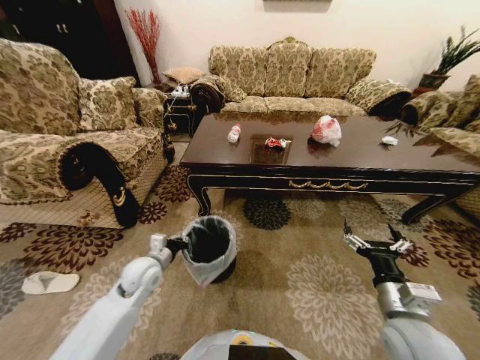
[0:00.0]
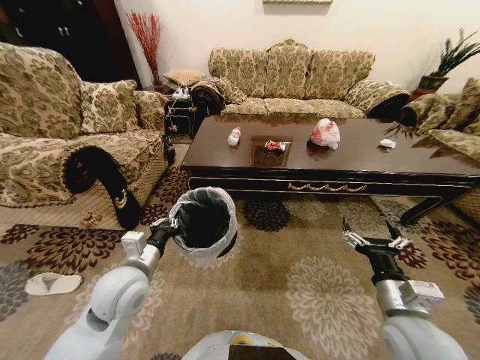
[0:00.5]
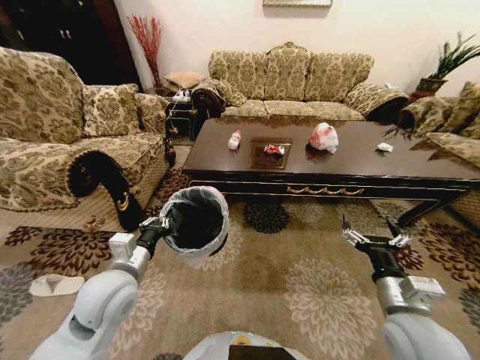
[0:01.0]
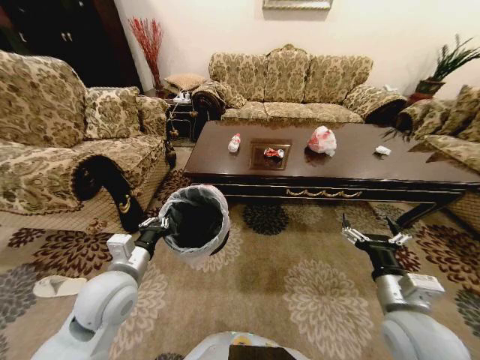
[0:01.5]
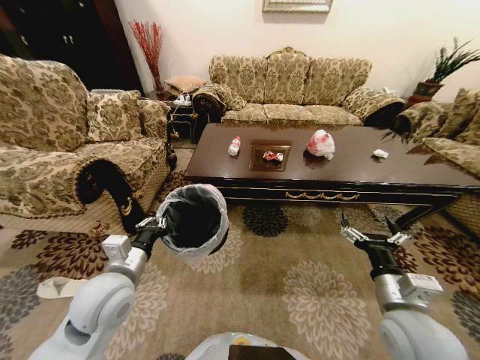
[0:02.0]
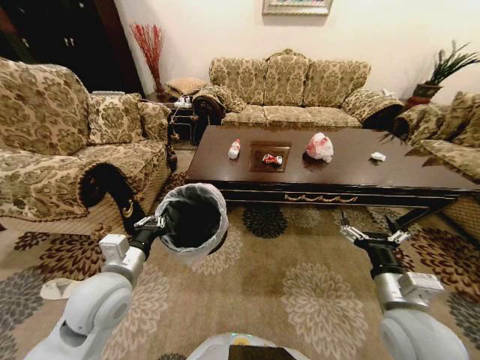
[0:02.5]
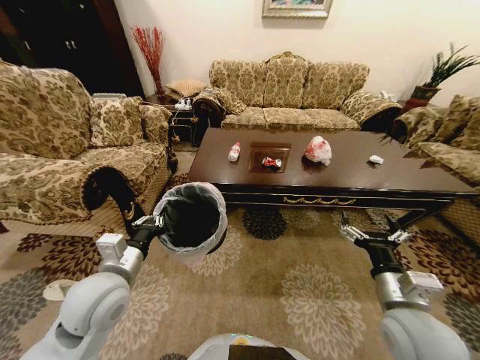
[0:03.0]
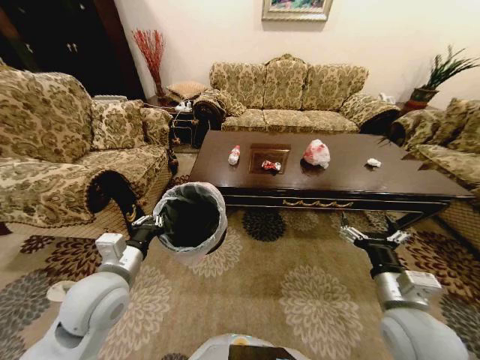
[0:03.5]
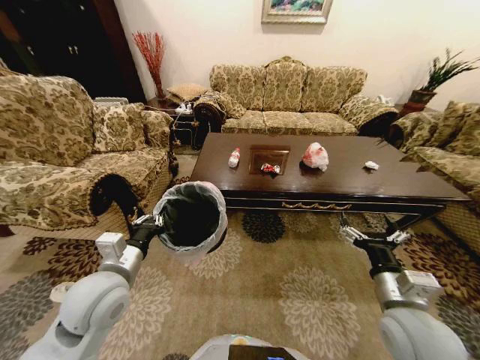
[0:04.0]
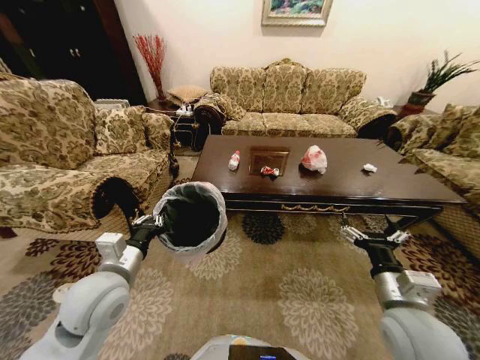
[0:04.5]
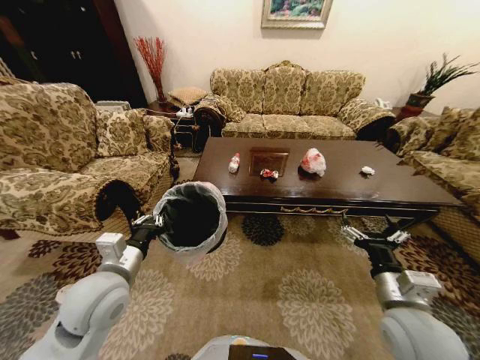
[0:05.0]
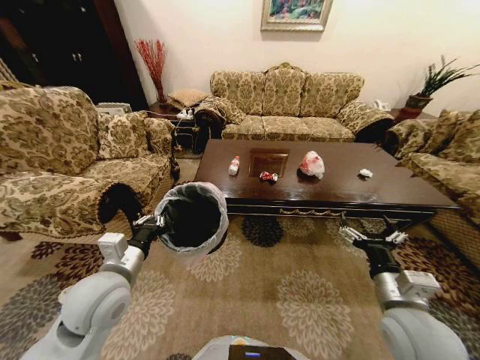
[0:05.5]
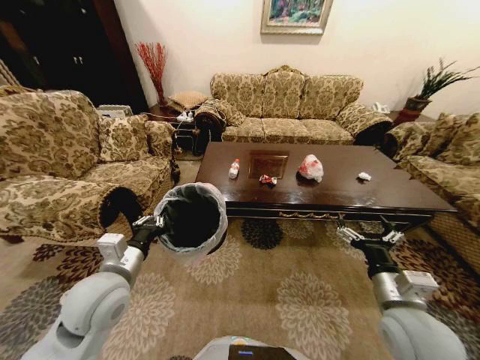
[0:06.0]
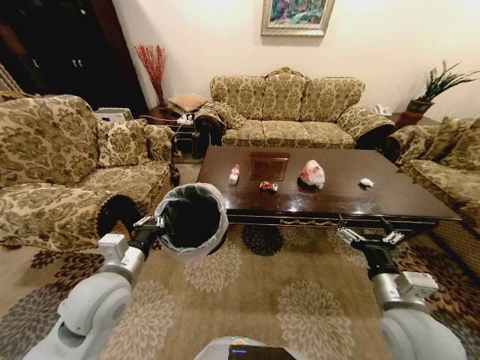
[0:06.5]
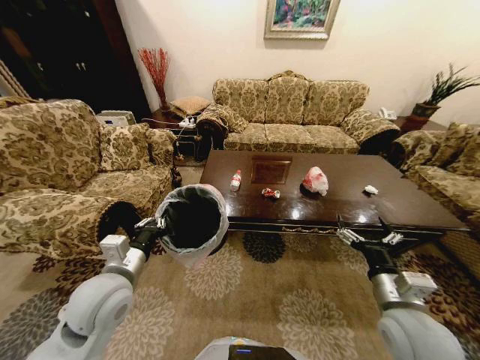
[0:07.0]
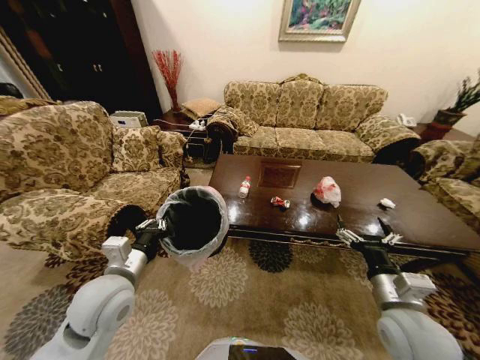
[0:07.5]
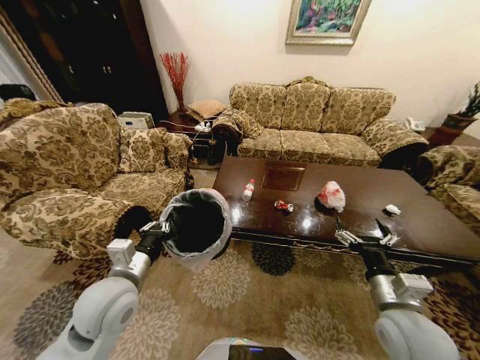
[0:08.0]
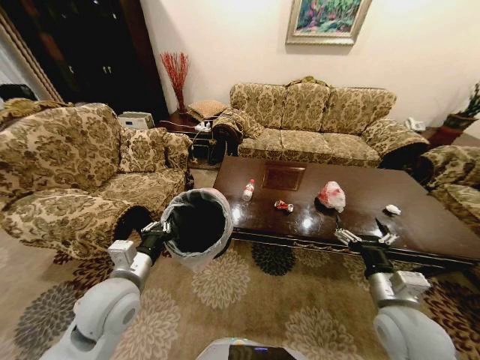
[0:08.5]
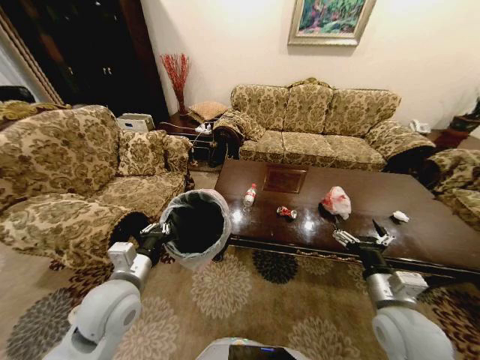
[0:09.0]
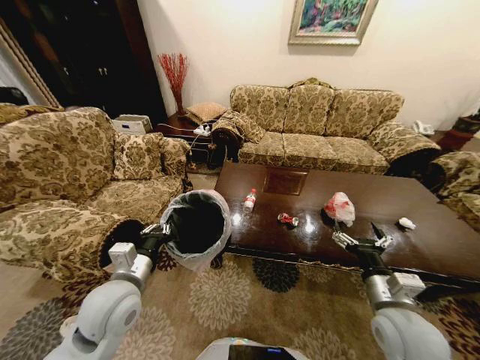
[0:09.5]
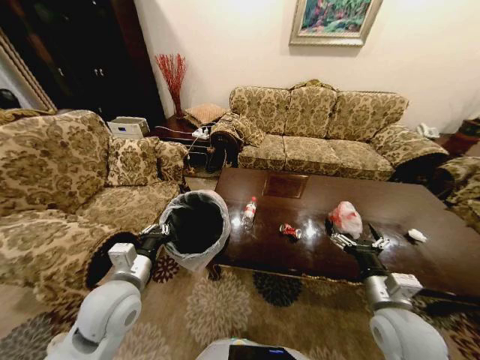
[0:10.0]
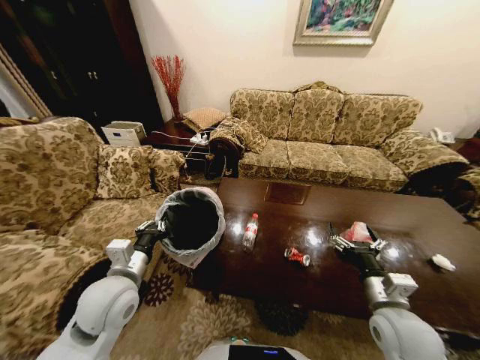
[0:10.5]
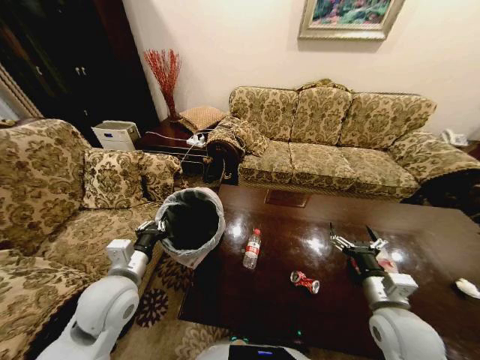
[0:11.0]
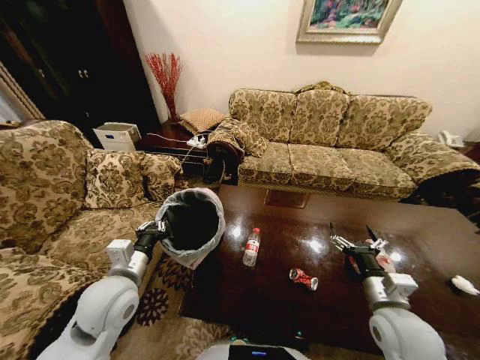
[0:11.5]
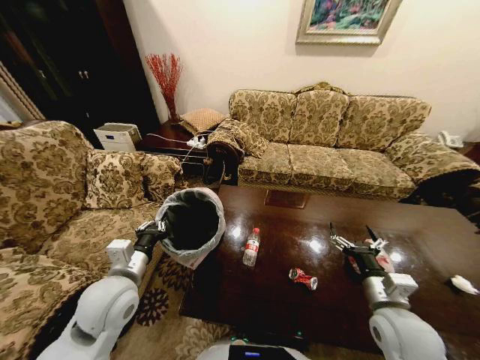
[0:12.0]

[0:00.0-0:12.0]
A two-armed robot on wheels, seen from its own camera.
Task of the whole recording: Move to the front of the table and place the trash on the table into the trash bin.
0:00.0 to 0:02.0: The left gripper shifts about 15 cm upward and backward.

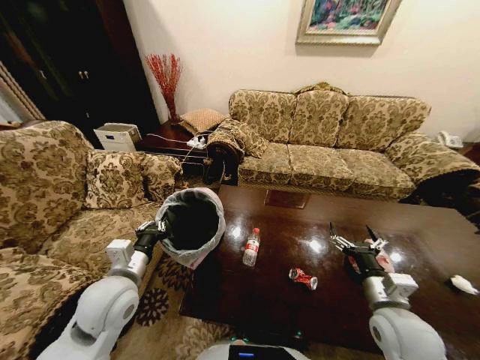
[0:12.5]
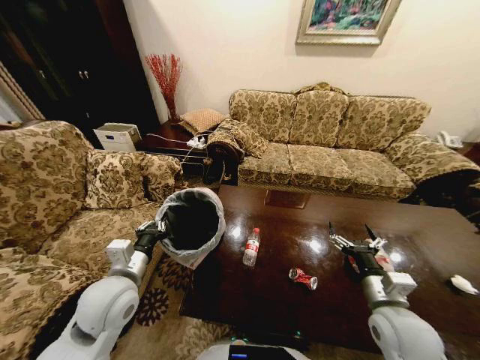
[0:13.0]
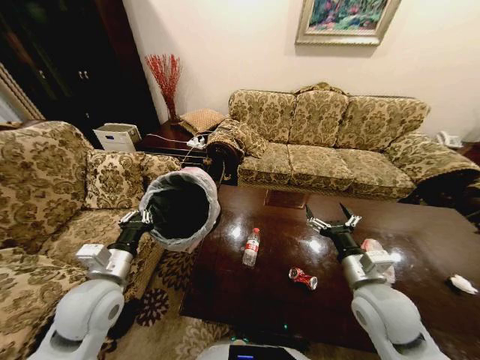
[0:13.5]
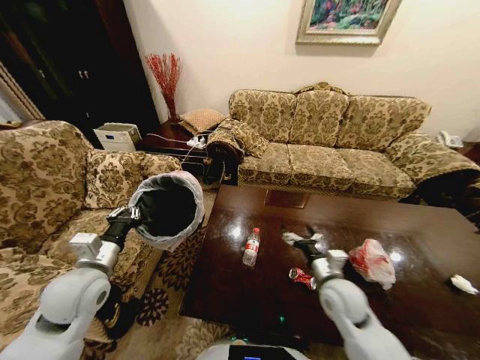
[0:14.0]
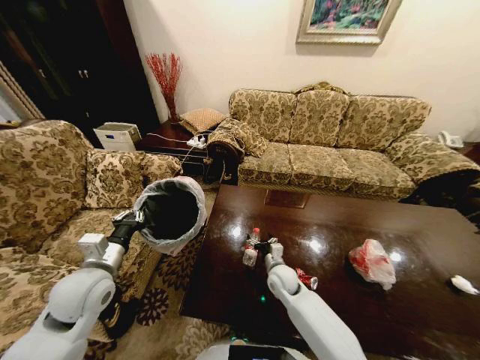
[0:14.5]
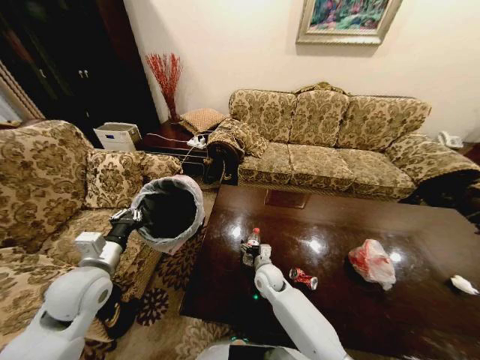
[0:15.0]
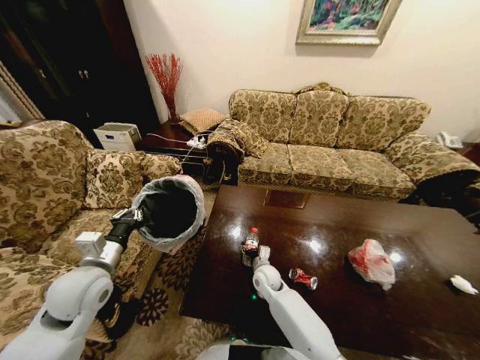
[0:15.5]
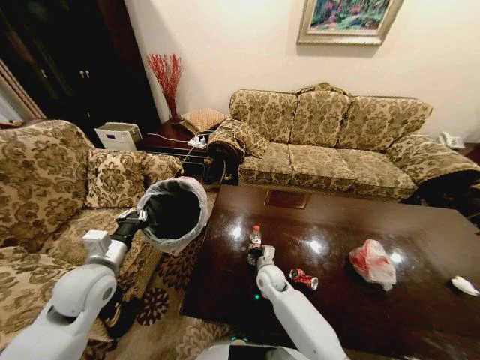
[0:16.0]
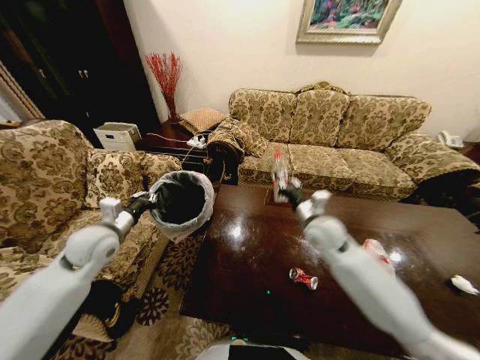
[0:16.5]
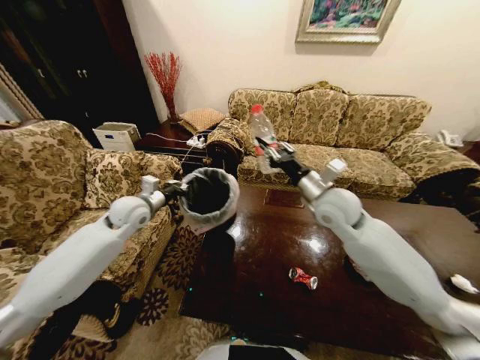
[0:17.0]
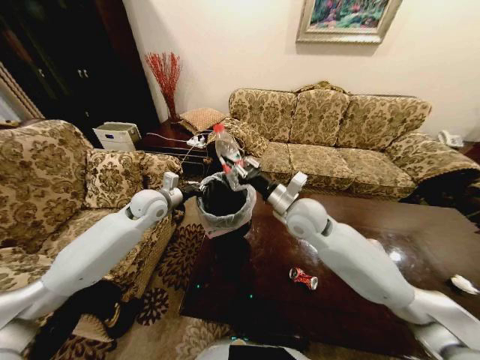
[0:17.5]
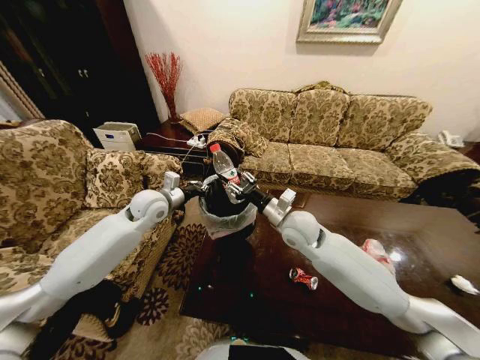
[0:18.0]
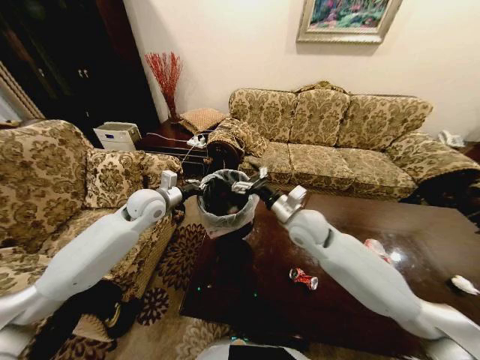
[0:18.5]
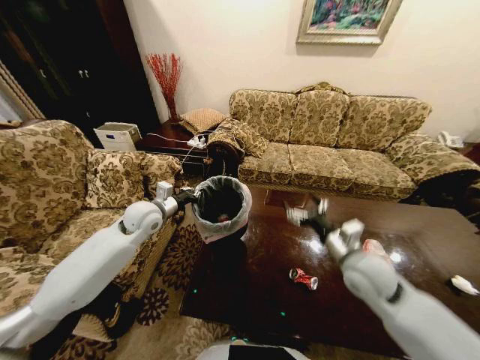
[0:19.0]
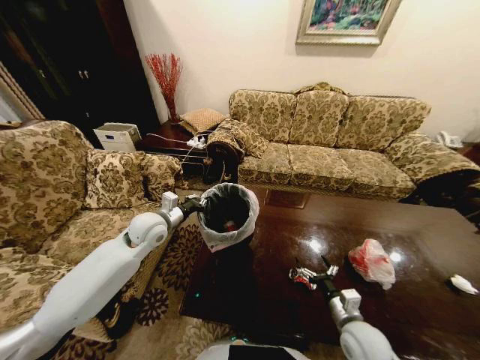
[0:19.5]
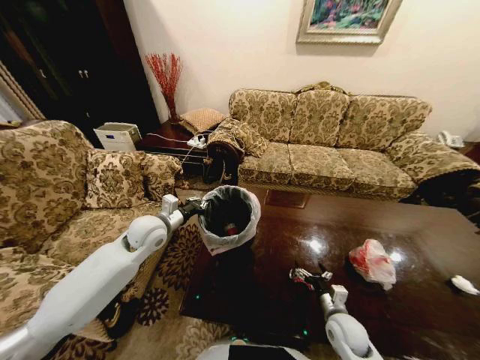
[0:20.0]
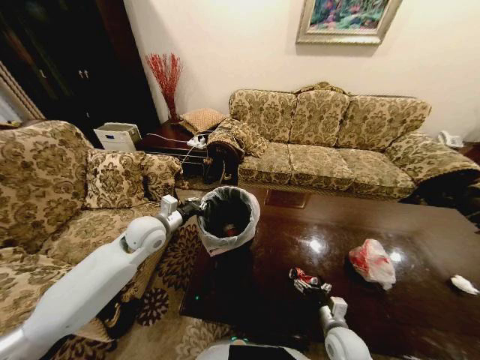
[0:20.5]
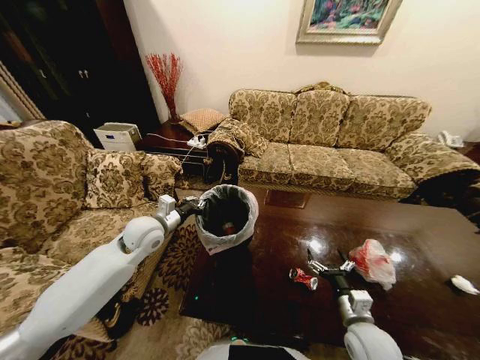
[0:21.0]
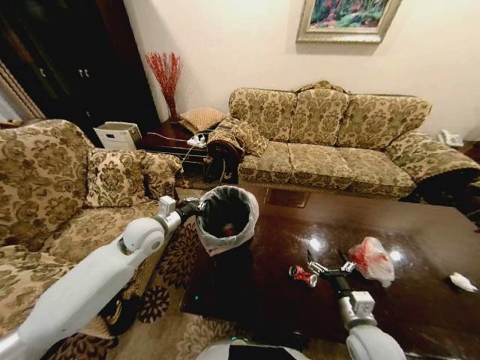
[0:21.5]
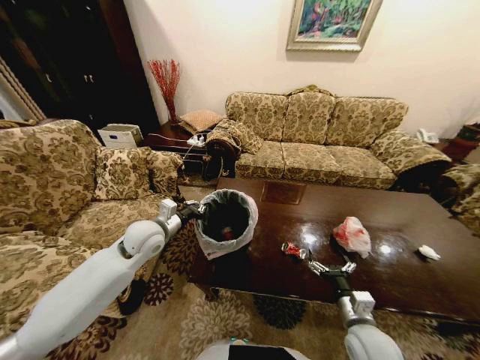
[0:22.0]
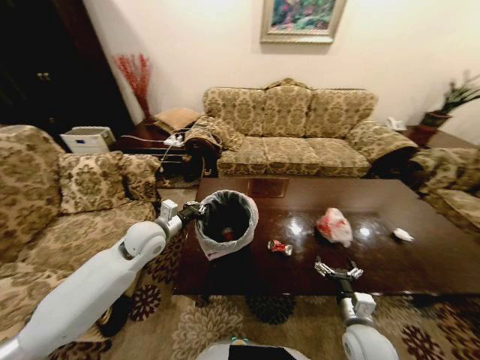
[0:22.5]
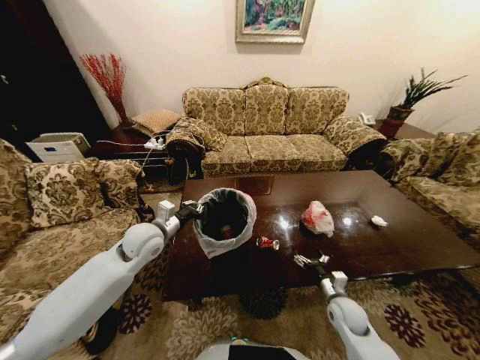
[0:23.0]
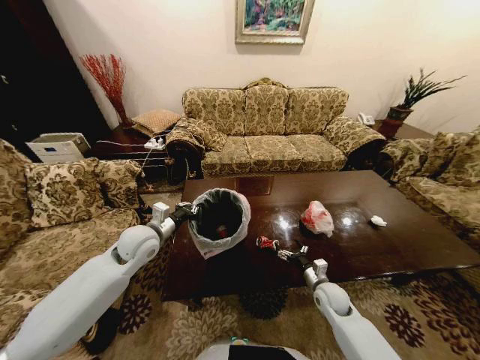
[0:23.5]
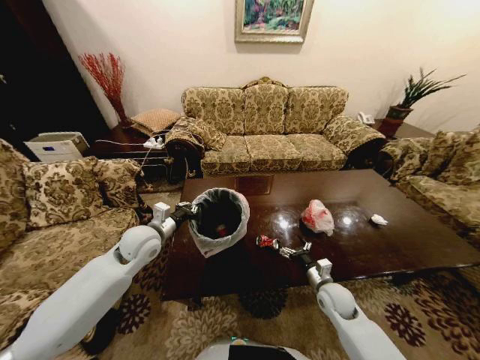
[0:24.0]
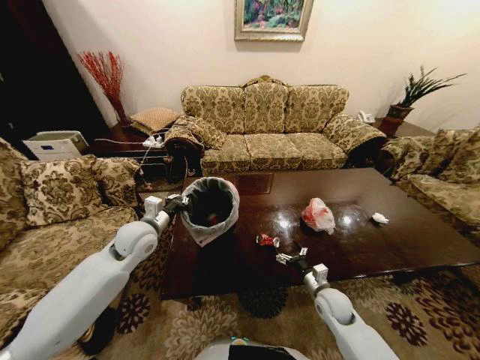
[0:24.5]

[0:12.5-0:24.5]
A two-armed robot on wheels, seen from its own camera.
Task of the whole recording: Move to the front of the table and place the trash on the table into the trash bin.
0:12.5 to 0:14.5: The right gripper goes roughly 30 cm to the left, downward and forward. The left gripper shifts roughly 5 cm to the left.
0:14.5 to 0:16.5: The right gripper heads upward and to the right, covering about 20 cm, and closes its fingers; the left gripper is displaced forward by approximately 10 cm.
0:16.5 to 0:18.5: The left gripper goes some 15 cm forward and to the right. Meanwhile the right gripper shifts approximately 5 cm to the left, and opens up.
0:18.5 to 0:20.5: The left gripper goes some 5 cm backward; the right gripper heads downward, backward and to the right, covering about 35 cm.
0:20.5 to 0:22.5: The right gripper shifts about 10 cm upward.
0:22.5 to 0:24.5: The right gripper is displaced forward and downward by roughly 10 cm.

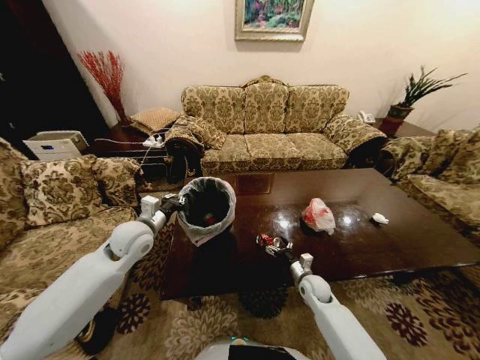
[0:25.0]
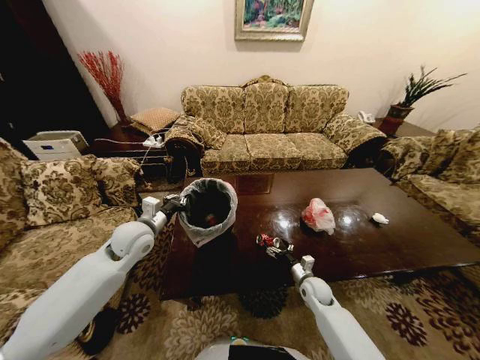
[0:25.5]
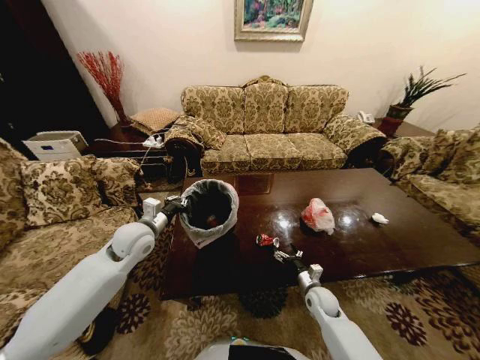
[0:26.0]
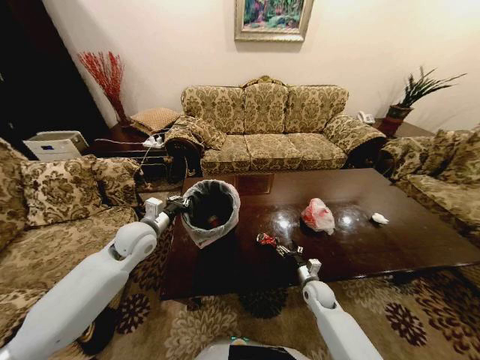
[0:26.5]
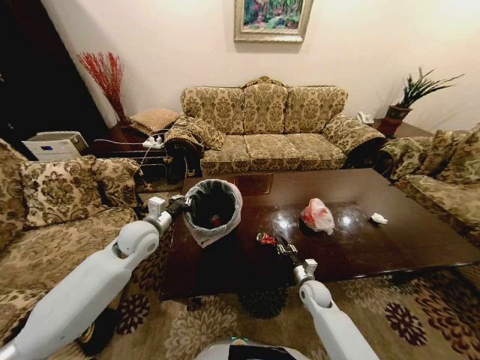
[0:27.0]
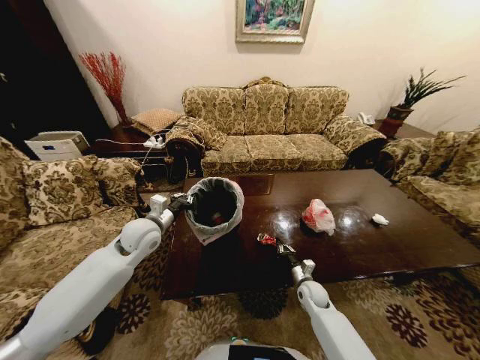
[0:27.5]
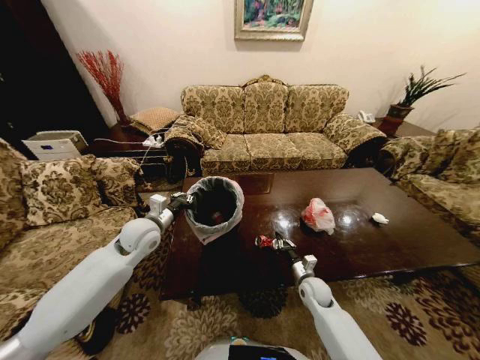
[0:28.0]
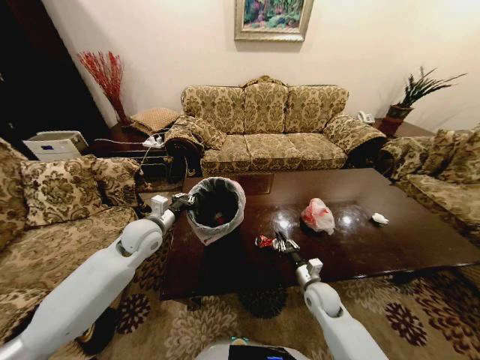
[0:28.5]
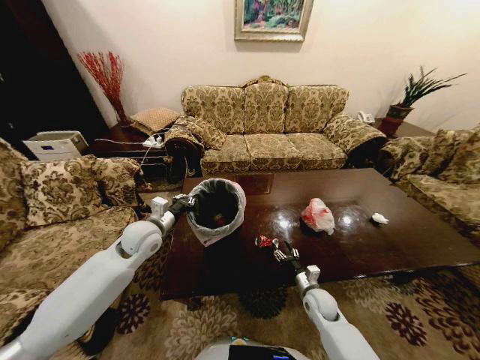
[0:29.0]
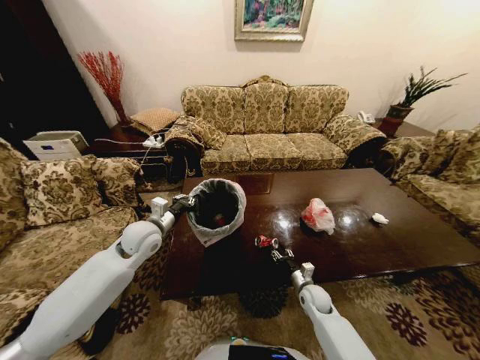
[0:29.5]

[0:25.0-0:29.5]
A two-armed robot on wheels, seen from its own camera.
Task of the whole recording: Move to the front of the table and place the trash on the table into the trash bin.
0:25.0 to 0:27.0: The right gripper closes.
0:27.0 to 0:29.5: The right gripper goes upward and returns, some 5 cm each way, and closes, then opens again.
